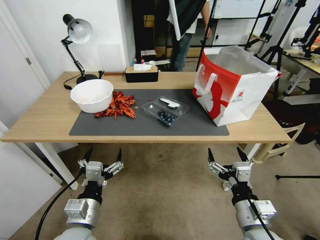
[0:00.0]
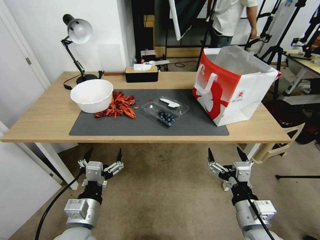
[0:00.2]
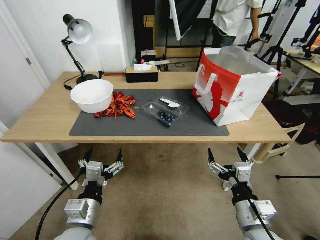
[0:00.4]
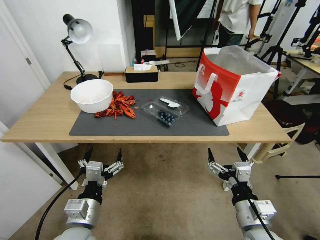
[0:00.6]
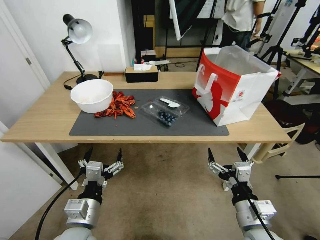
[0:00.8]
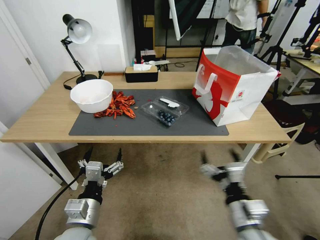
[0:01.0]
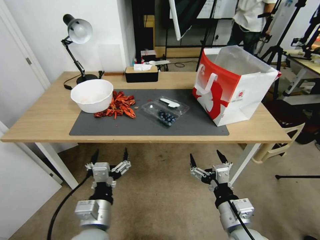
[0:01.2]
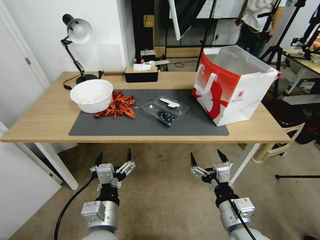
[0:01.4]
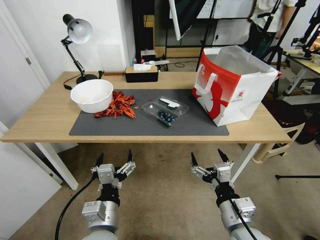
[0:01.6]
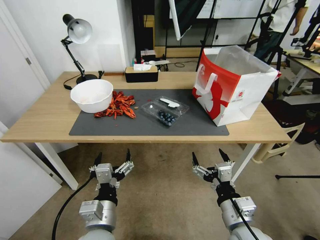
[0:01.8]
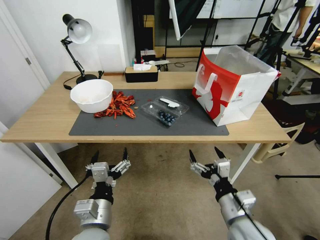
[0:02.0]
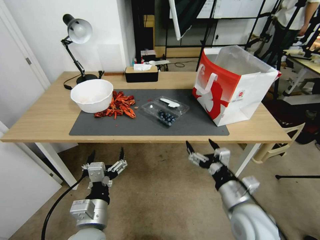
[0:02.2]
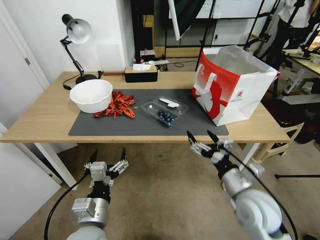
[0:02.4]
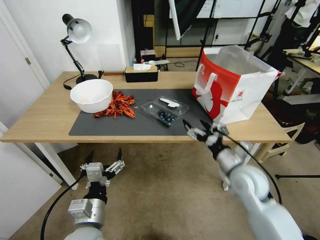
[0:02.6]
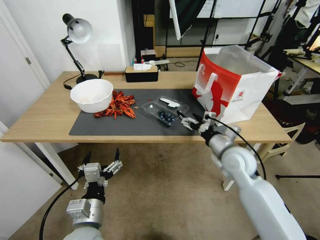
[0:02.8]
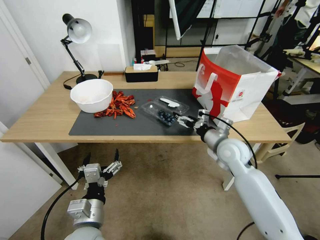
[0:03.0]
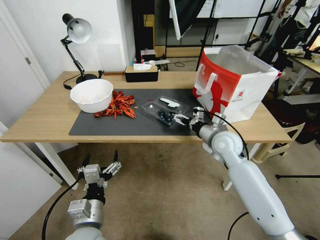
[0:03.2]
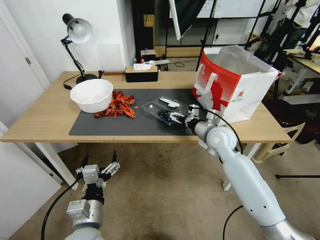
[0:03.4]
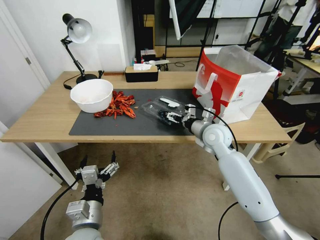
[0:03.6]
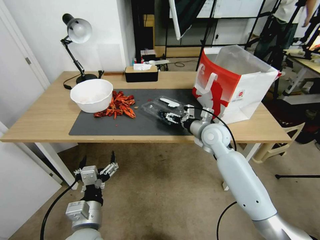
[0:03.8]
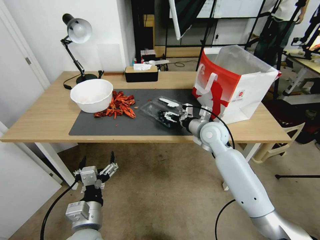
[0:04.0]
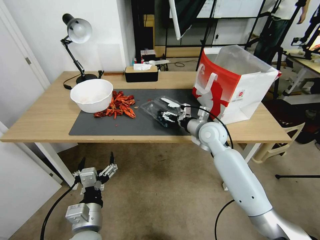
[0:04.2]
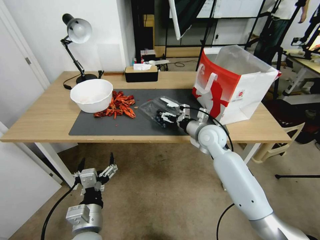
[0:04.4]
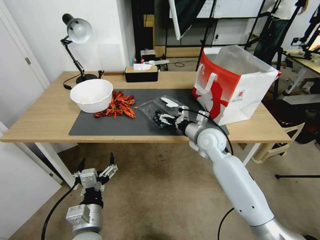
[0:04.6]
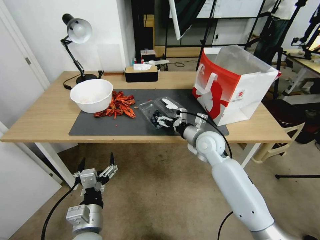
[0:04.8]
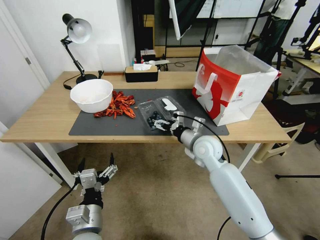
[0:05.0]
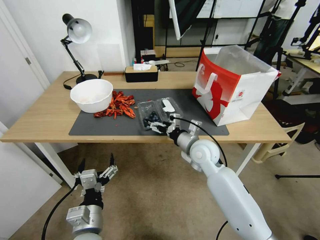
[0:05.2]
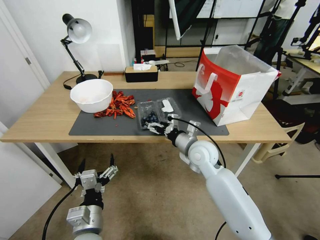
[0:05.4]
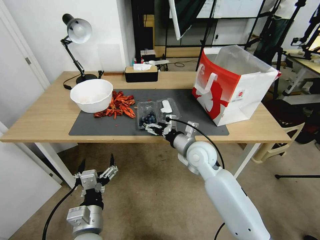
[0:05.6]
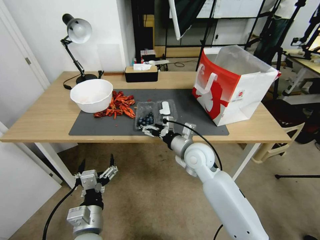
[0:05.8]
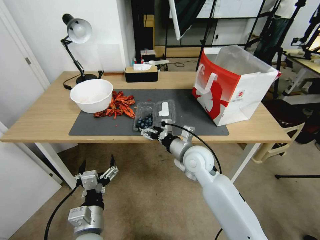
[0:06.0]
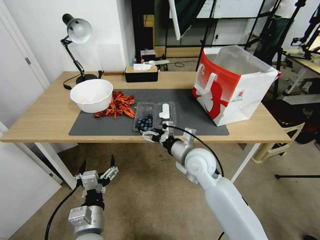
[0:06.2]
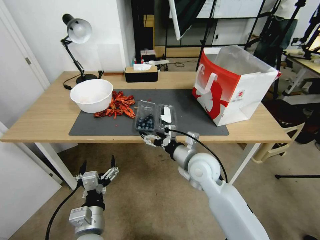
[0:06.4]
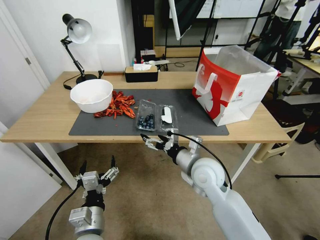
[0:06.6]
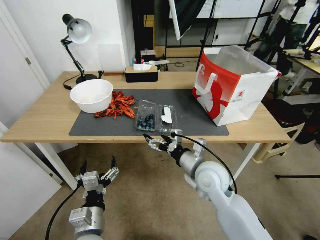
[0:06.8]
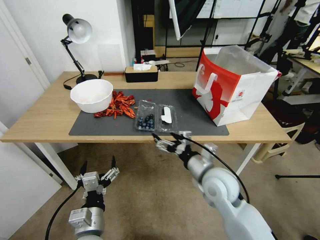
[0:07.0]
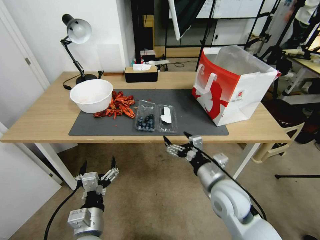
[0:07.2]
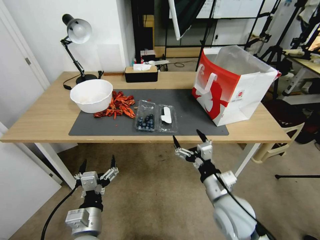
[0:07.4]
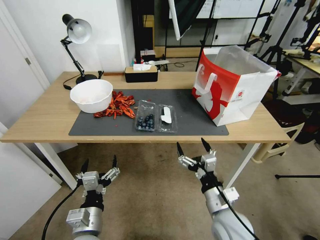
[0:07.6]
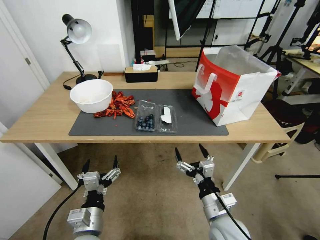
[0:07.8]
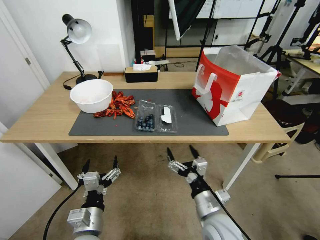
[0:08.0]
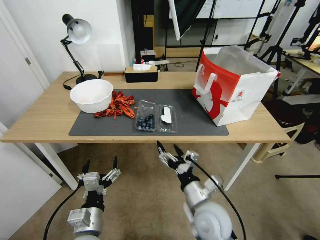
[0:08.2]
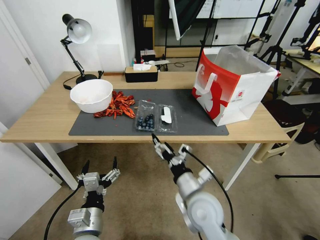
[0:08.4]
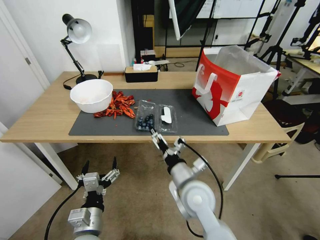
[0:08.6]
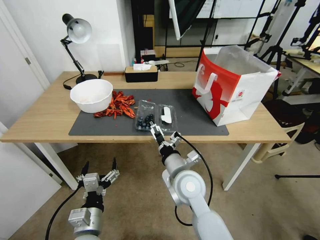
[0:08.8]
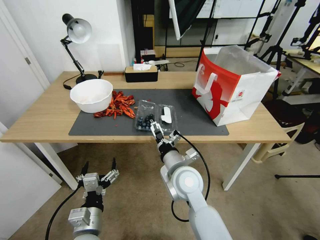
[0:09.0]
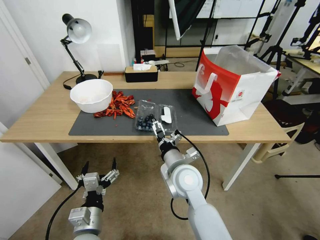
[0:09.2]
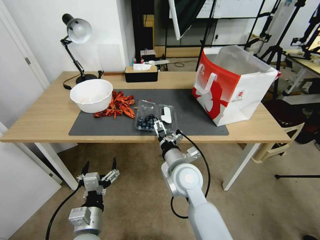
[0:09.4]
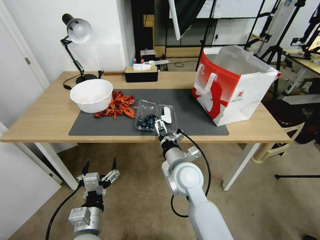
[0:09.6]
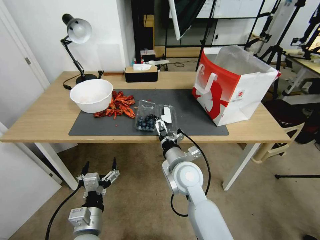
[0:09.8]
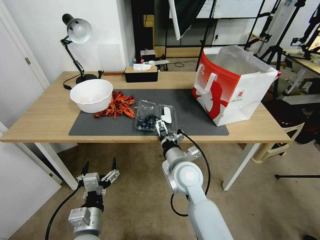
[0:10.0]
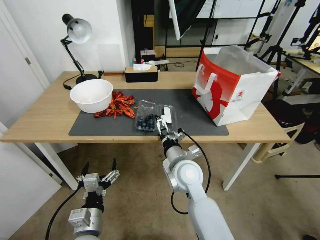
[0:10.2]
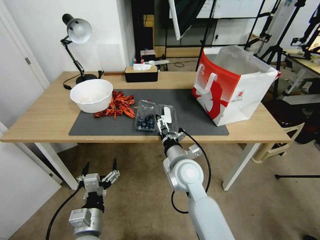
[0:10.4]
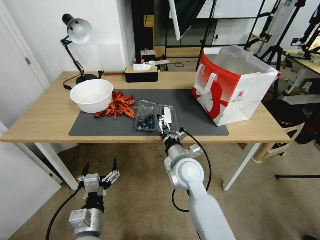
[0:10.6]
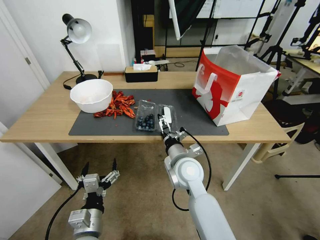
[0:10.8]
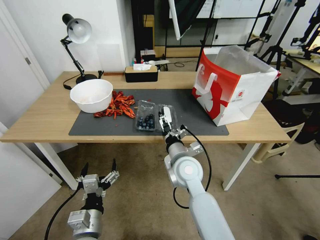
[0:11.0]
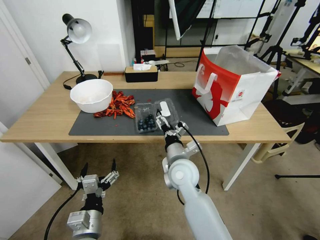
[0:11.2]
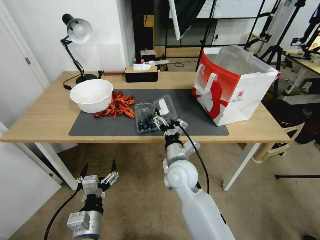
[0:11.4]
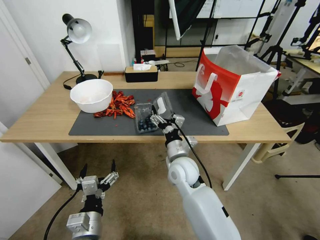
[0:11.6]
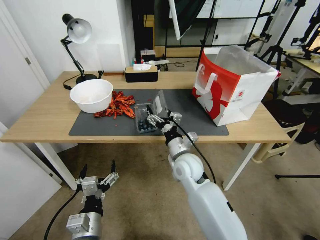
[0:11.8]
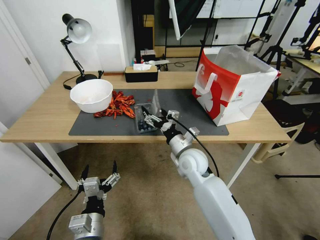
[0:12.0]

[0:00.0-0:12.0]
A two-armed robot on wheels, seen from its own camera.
Task of the whole recording: Close the takeout container lid, then place the container into the takeout bag.
0:01.6 to 0:03.0: The right gripper is displaced forward by some 25 cm.
0:03.0 to 0:04.4: The right gripper moves forward, roughly 5 cm.
0:04.4 to 0:06.0: The right gripper moves backward and to the left, about 10 cm.
0:06.0 to 0:07.6: The right gripper shifts roughly 20 cm backward and to the right.
0:07.6 to 0:09.0: The right gripper goes roughly 15 cm to the left and forward.
0:09.0 to 0:10.4: There are only small adjustments of the grippers.
0:10.4 to 0:12.0: The right gripper moves roughly 5 cm.

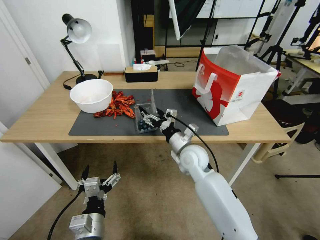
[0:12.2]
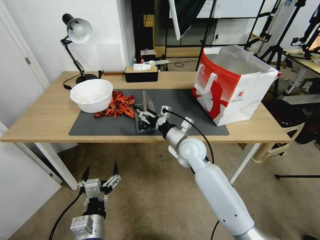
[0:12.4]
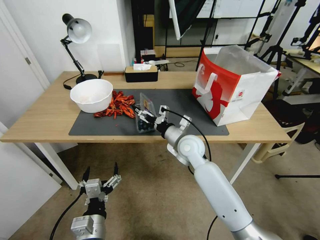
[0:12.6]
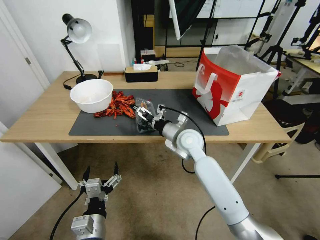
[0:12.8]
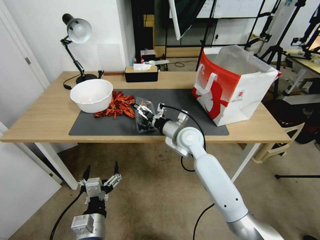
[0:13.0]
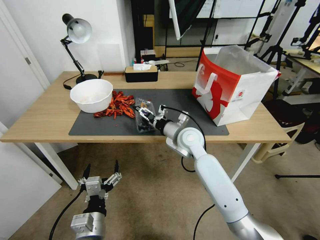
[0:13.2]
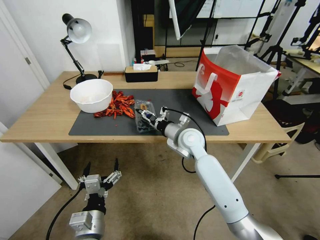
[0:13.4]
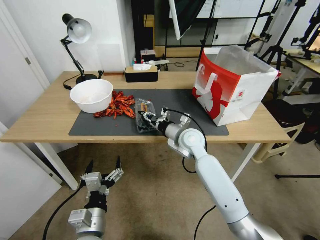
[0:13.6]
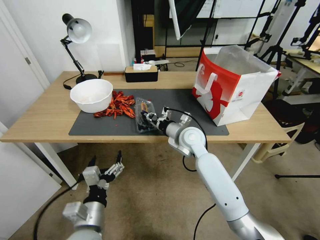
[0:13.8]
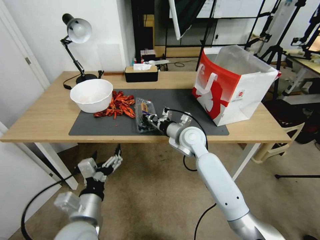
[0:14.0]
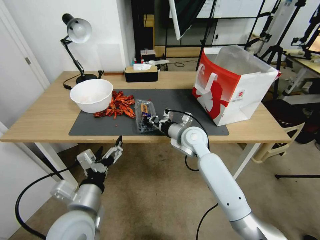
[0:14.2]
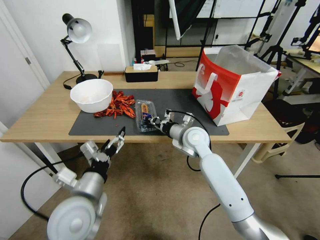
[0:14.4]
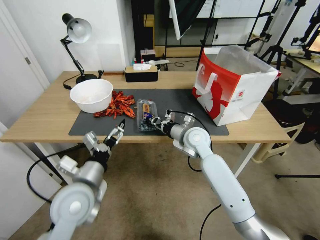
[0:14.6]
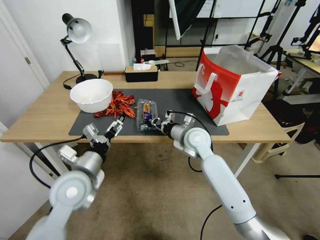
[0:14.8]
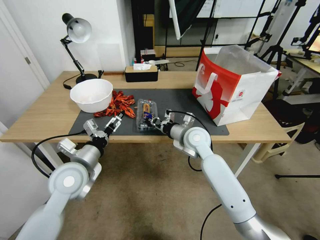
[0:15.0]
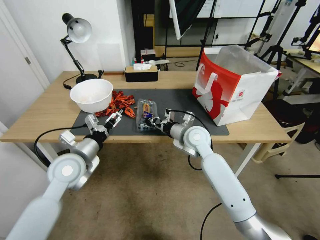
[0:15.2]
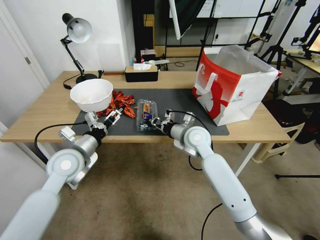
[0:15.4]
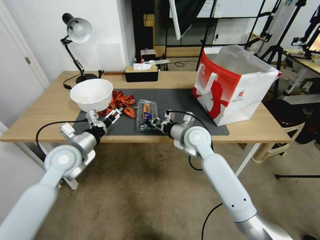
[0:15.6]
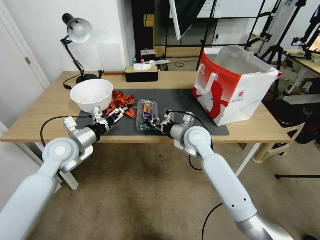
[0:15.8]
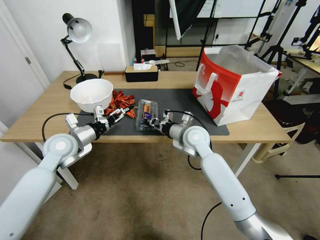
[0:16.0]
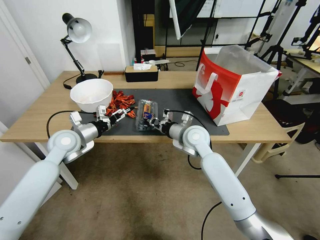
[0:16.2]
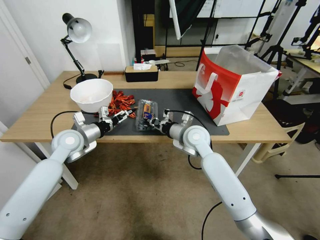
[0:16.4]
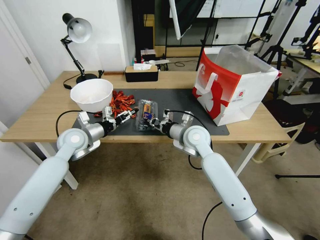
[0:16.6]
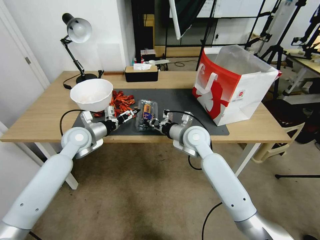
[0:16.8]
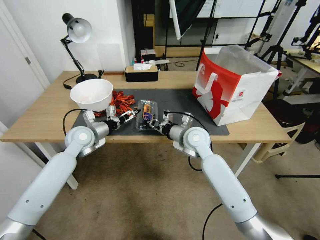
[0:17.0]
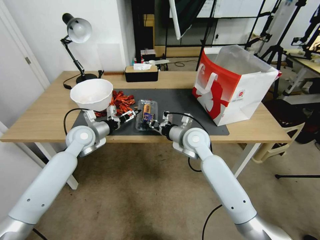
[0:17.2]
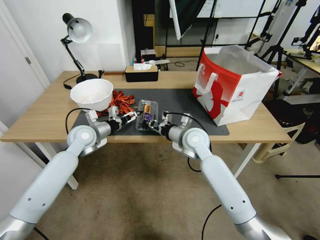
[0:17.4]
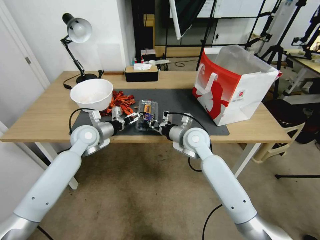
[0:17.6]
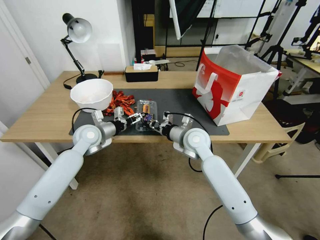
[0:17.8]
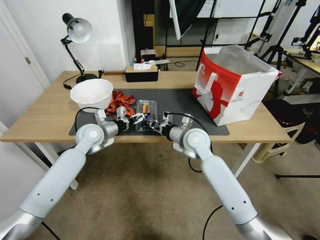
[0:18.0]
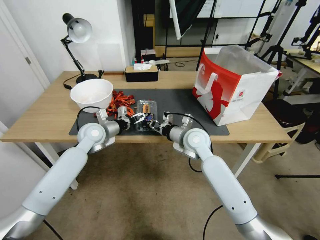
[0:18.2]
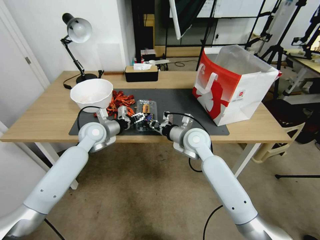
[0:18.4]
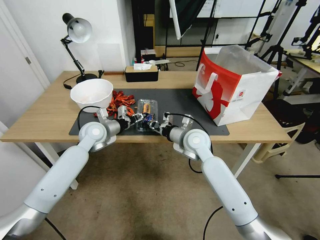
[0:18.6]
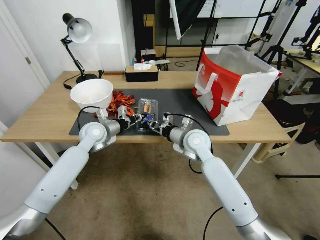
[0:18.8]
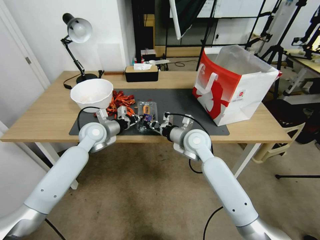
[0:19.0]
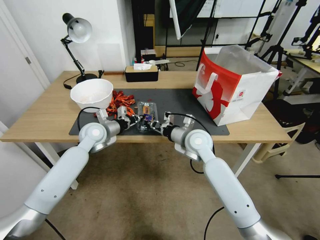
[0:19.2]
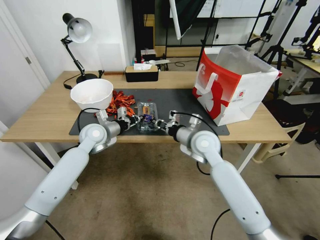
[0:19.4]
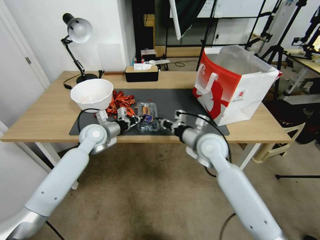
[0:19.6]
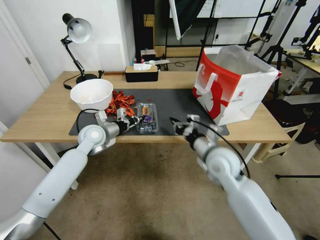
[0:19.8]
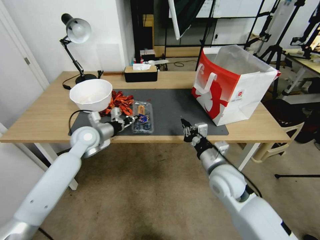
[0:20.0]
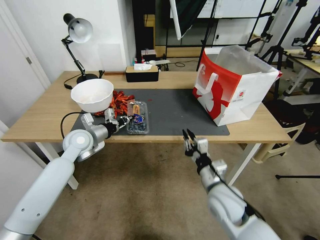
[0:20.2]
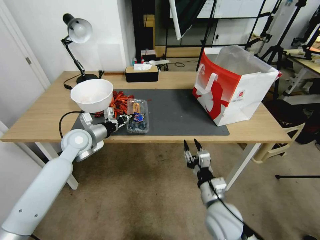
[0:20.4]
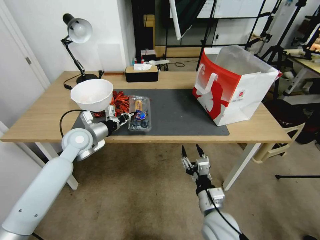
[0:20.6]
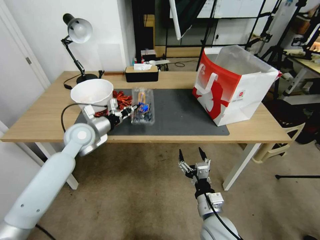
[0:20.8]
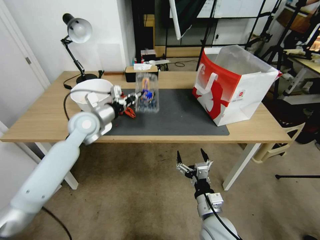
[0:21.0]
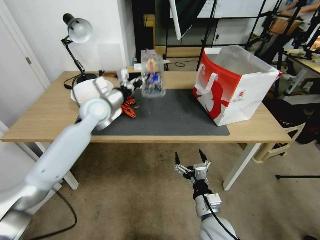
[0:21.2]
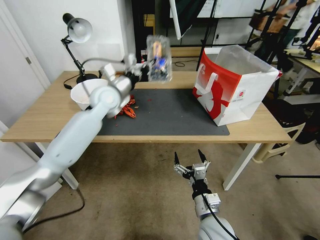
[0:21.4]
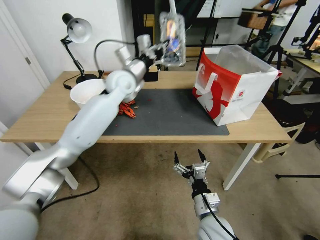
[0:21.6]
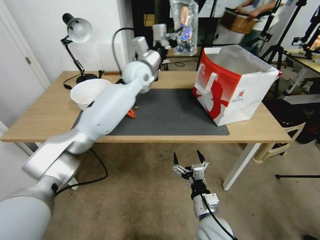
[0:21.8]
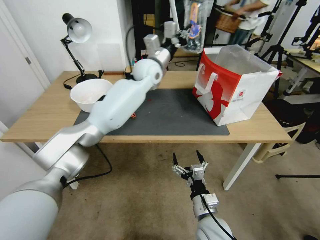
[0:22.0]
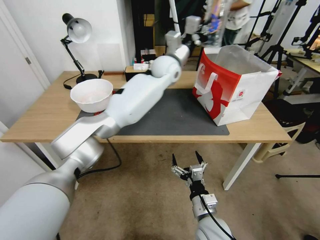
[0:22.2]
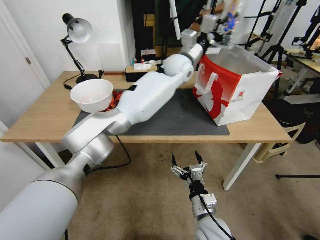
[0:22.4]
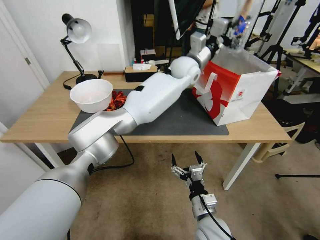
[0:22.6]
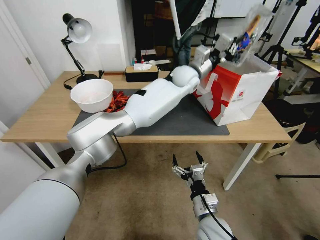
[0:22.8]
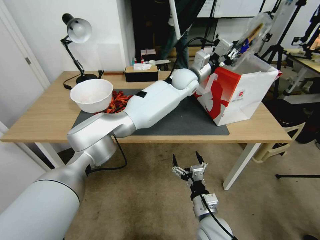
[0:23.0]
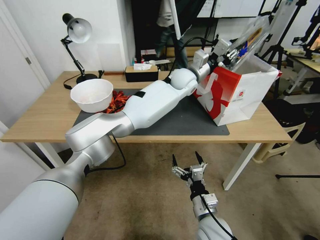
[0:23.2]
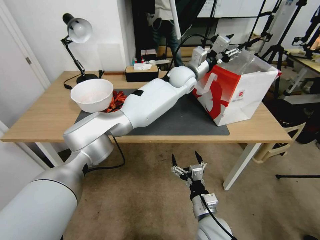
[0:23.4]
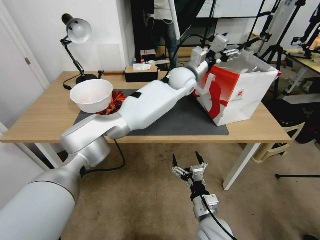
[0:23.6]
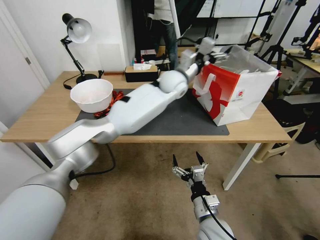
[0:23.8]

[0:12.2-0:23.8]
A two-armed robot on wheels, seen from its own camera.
Task of the whole recording: Close the takeout container lid, then place the container into the takeout bag.
0:12.2 to 0:13.6: The right gripper ends up some 5 cm from where it was, and closes up.
0:13.6 to 0:15.0: The left gripper is displaced forward, upward and to the left by approximately 20 cm.
0:15.0 to 0:16.6: The left gripper shifts roughly 15 cm forward.
0:16.6 to 0:18.0: The left gripper changes place by approximately 5 cm.
0:18.0 to 0:19.4: The left gripper closes up.
0:19.4 to 0:21.0: The right gripper heads backward and downward, covering approximately 25 cm, and opens. The left gripper moves upward, about 10 cm.
0:21.0 to 0:22.4: The left gripper is displaced to the right and forward by approximately 35 cm.
0:22.4 to 0:23.8: The left gripper changes place by about 5 cm, and opens its fingers.
